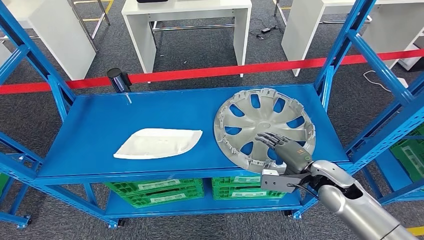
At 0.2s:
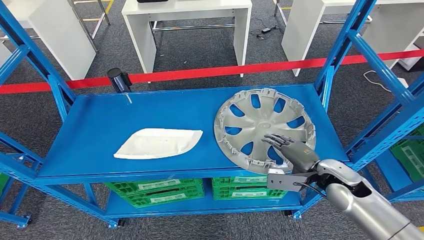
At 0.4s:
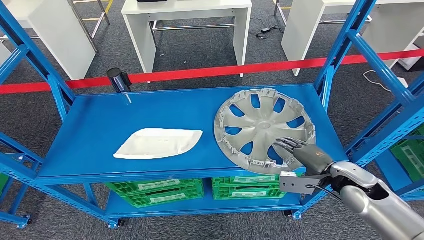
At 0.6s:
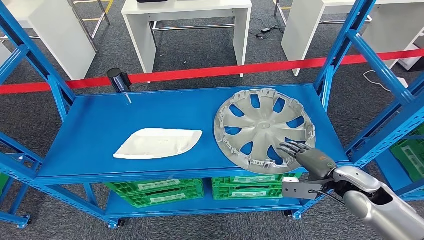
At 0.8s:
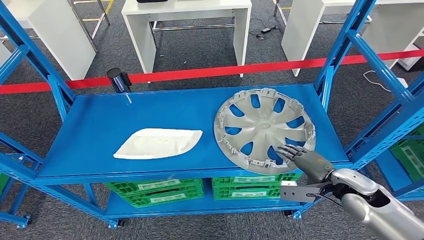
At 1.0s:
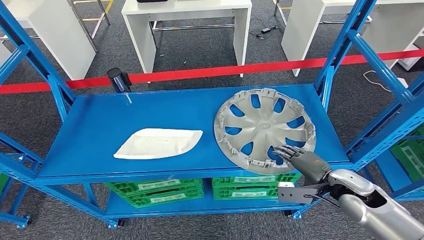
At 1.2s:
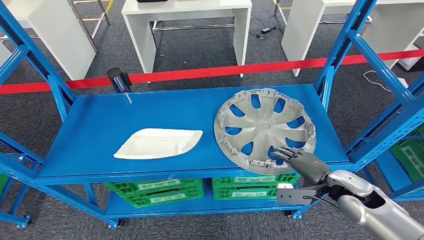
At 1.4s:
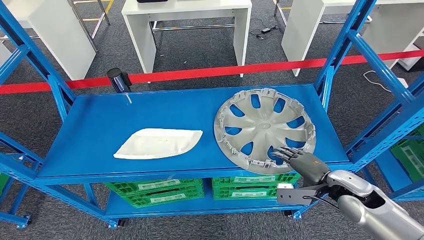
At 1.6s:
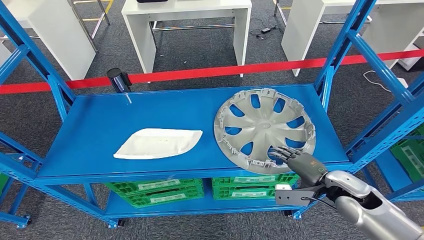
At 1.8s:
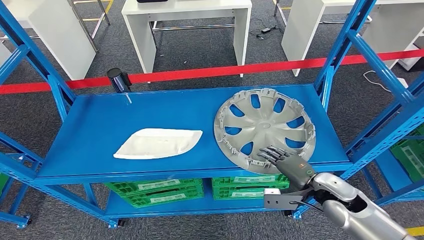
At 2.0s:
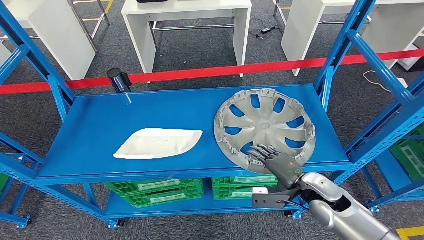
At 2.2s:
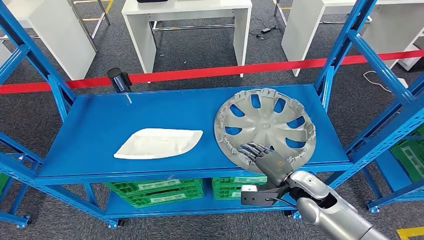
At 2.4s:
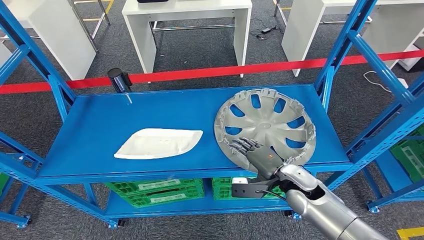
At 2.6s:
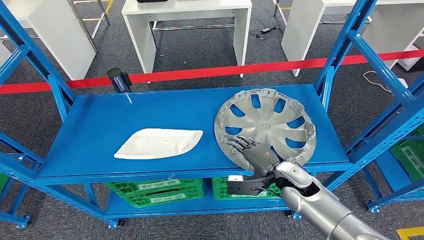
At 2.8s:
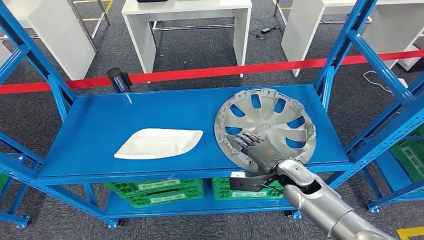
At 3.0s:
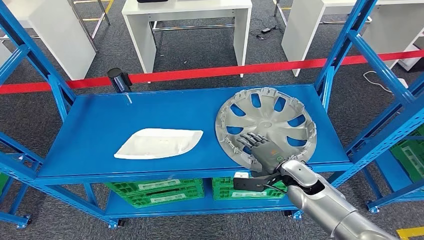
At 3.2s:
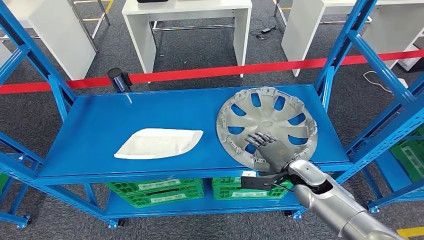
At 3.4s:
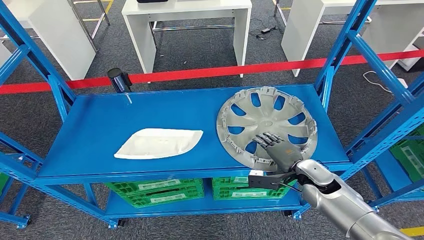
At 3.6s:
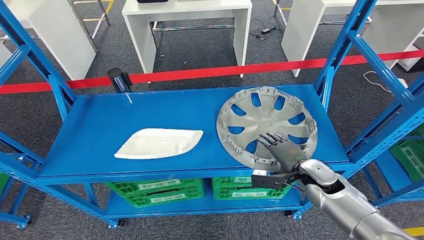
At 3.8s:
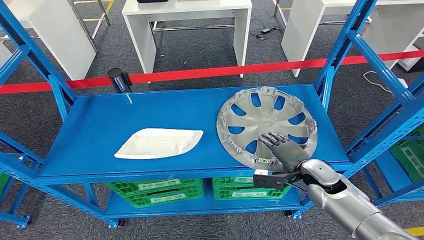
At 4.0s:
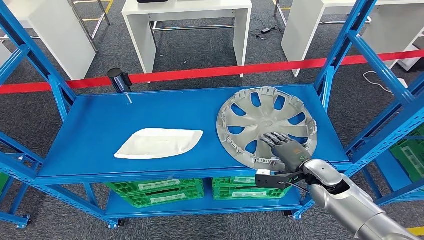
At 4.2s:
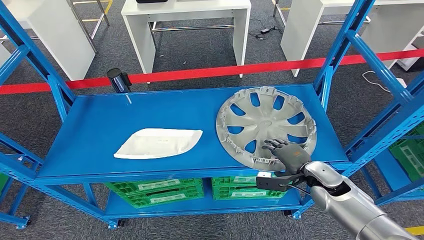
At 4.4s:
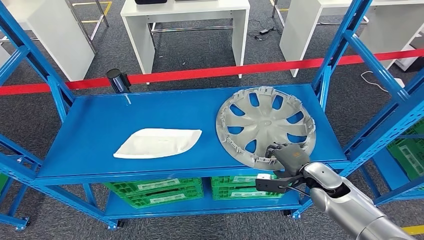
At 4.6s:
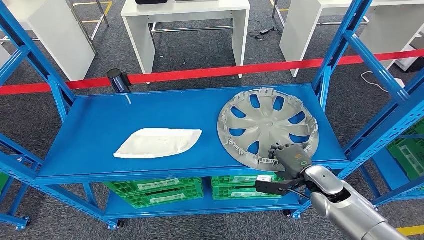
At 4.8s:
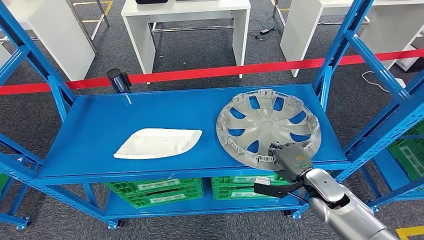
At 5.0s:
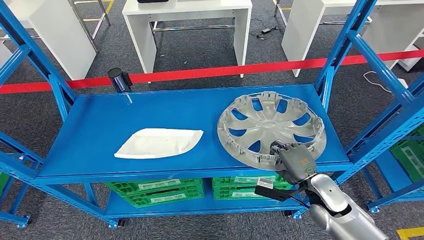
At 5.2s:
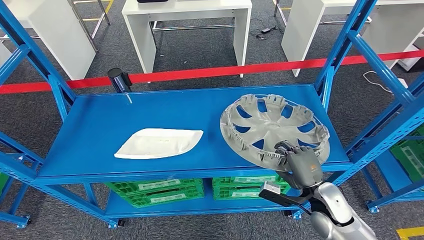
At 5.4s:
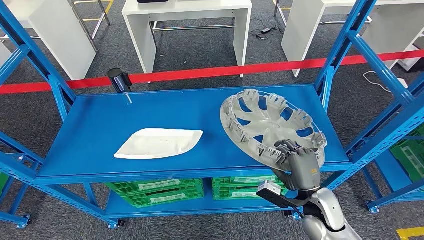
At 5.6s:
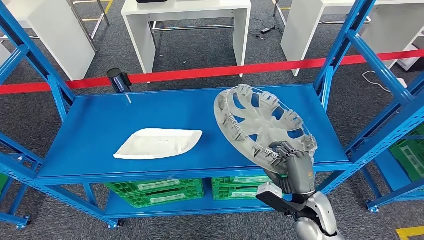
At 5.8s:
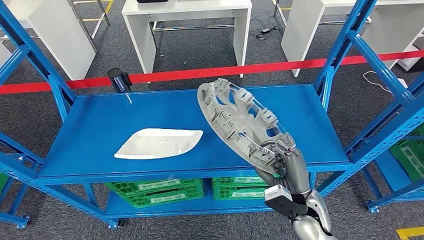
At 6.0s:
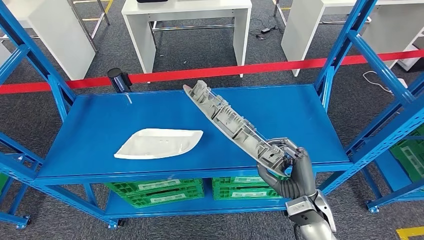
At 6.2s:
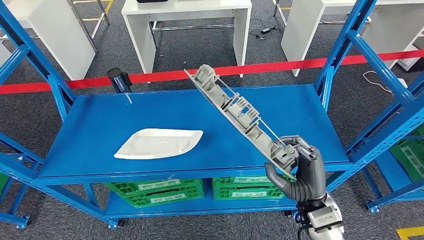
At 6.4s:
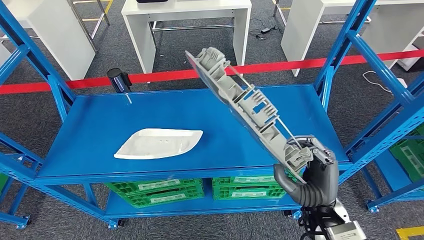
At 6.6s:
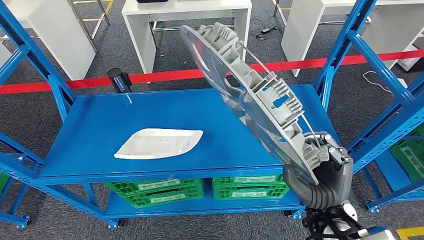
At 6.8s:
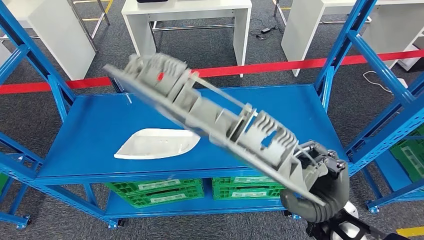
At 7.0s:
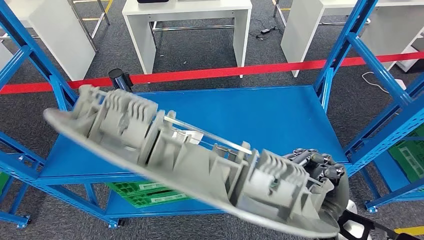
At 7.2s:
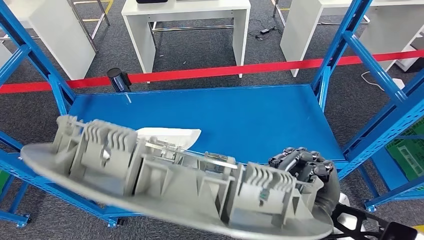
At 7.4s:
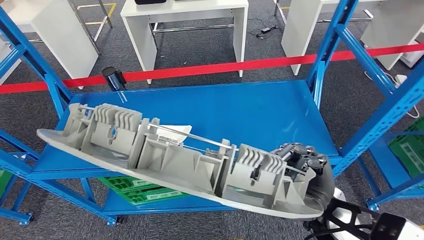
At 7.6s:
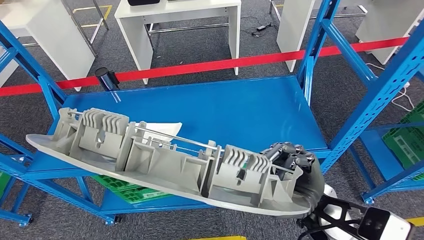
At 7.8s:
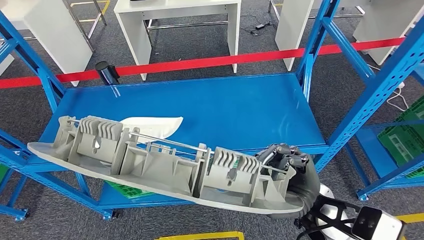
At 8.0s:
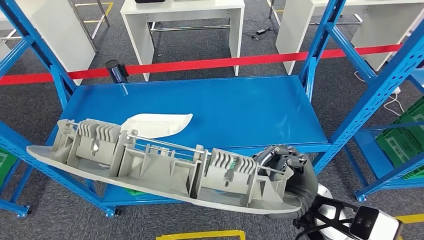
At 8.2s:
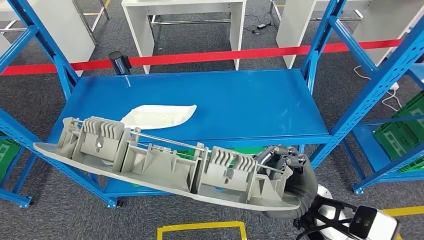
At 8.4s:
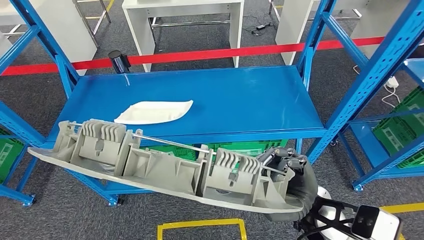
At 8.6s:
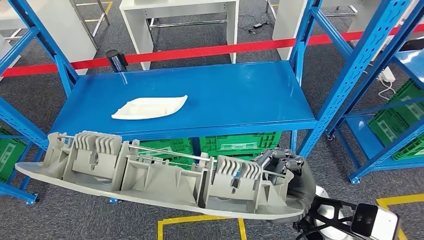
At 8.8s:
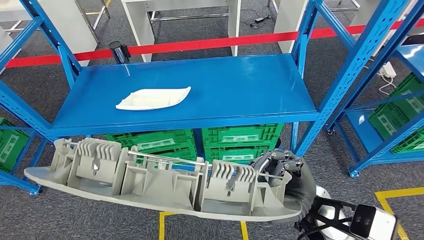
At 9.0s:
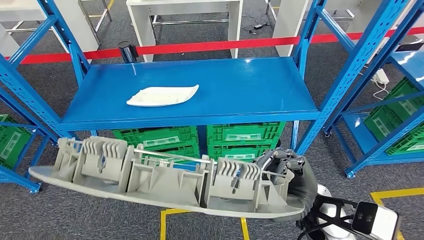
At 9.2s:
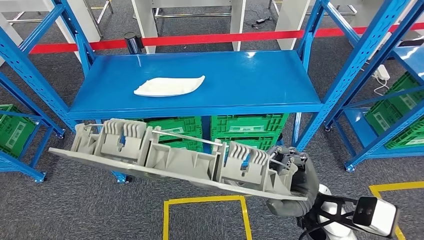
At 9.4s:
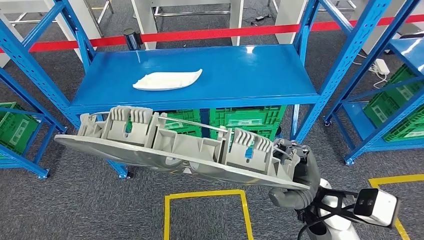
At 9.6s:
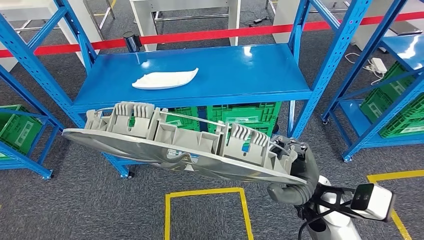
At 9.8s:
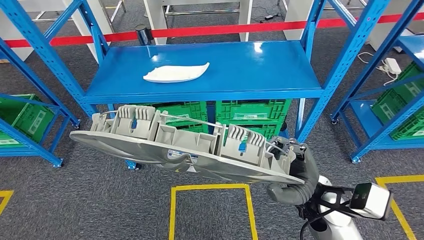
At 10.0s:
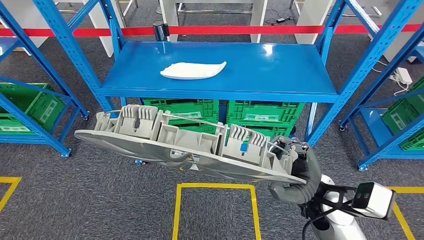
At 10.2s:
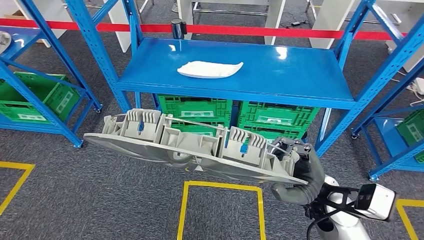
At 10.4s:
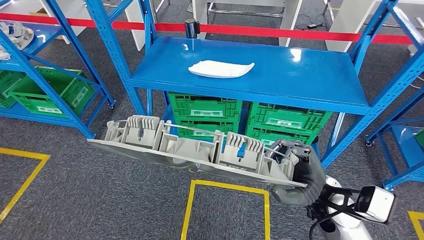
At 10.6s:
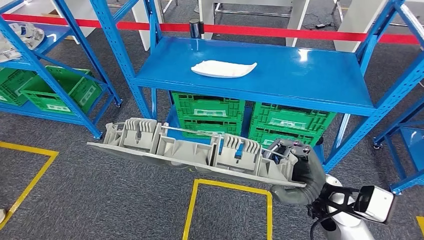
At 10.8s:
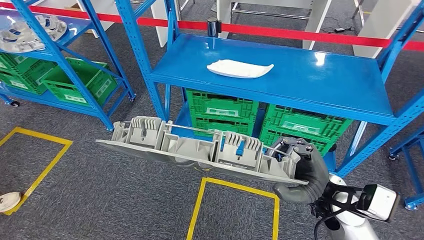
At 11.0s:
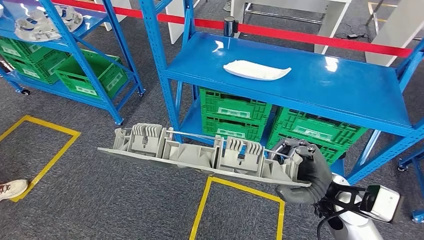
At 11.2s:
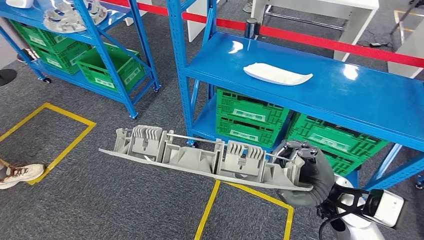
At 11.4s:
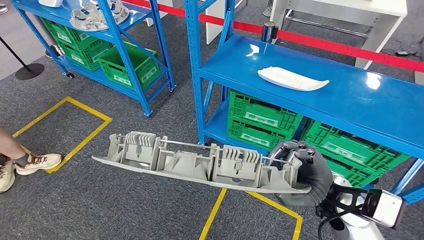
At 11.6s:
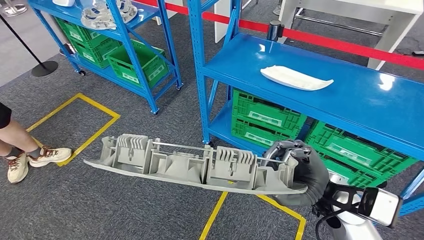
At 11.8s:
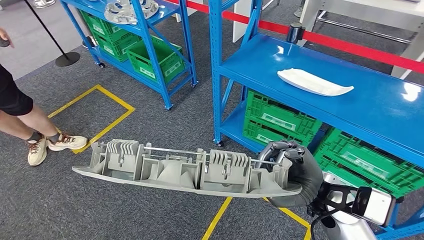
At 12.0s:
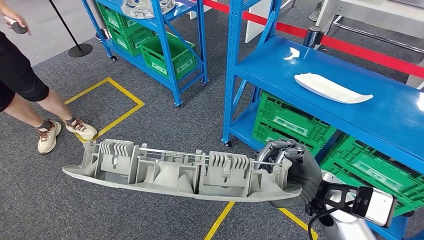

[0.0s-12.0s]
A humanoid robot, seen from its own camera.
Step, 0.0s to 7.0s: Take small components from the rack.
0.0s to 1.6s: The hands stay close to where they were, moving slightly.
1.6s to 3.0s: The right hand is displaced to the left by about 10 cm.
3.0s to 4.4s: The right hand goes about 5 cm to the right.

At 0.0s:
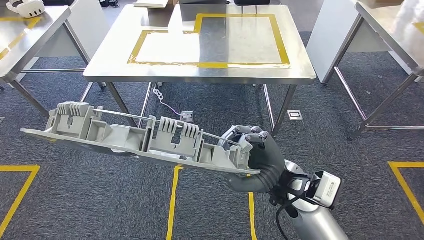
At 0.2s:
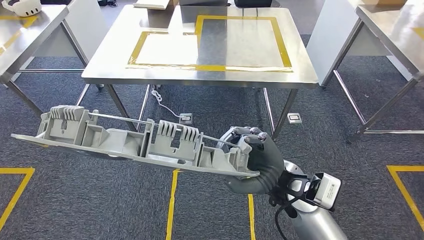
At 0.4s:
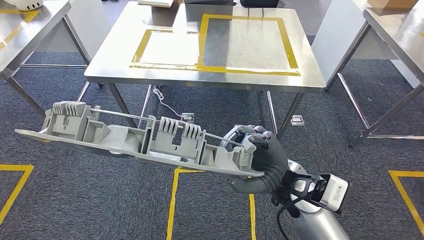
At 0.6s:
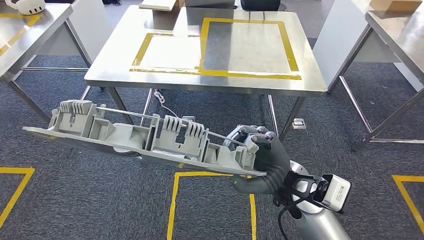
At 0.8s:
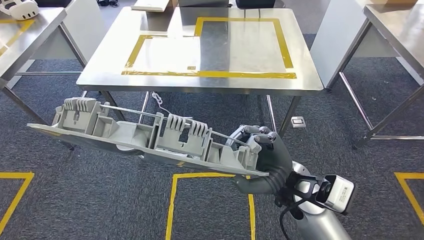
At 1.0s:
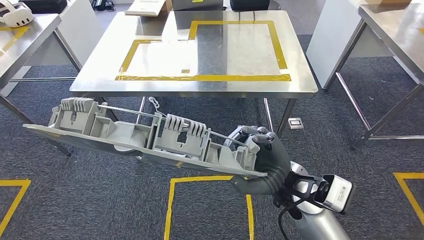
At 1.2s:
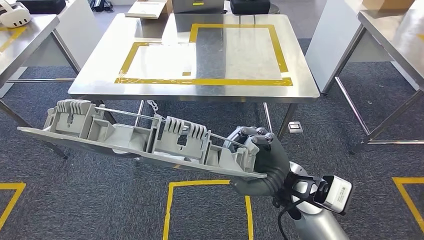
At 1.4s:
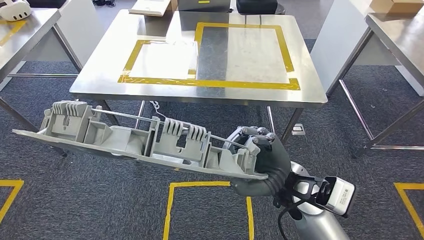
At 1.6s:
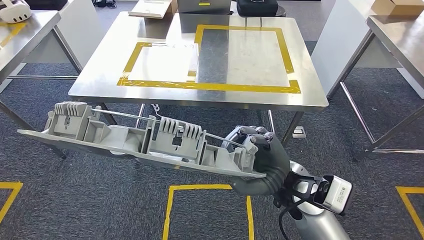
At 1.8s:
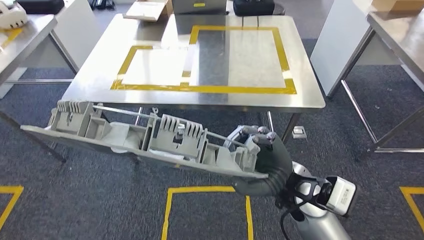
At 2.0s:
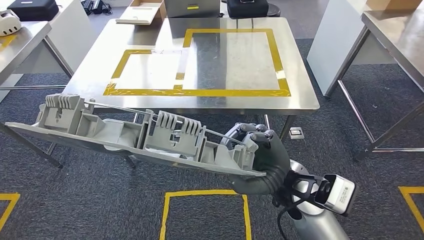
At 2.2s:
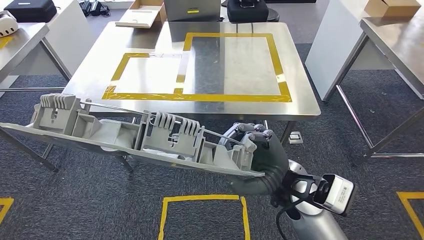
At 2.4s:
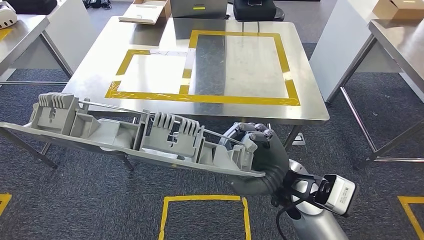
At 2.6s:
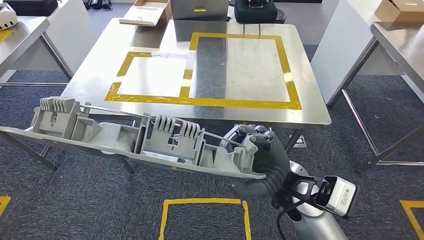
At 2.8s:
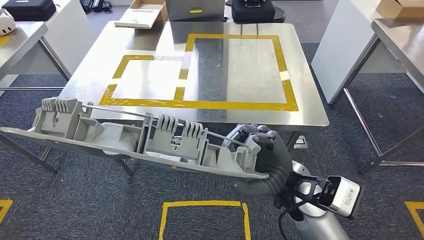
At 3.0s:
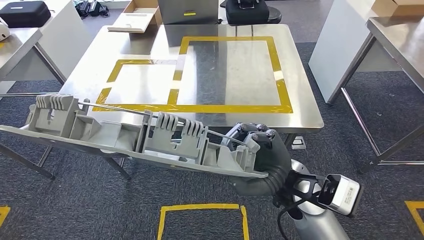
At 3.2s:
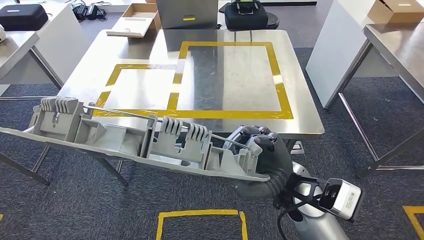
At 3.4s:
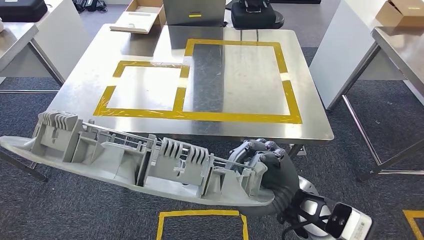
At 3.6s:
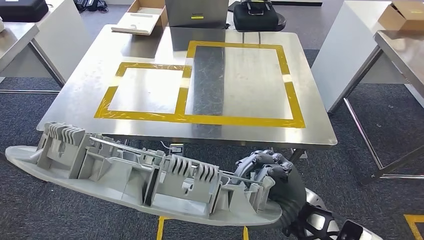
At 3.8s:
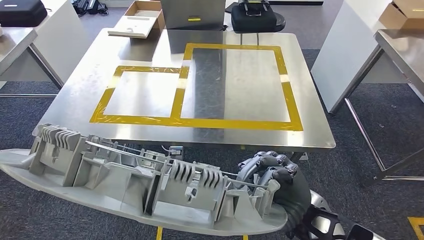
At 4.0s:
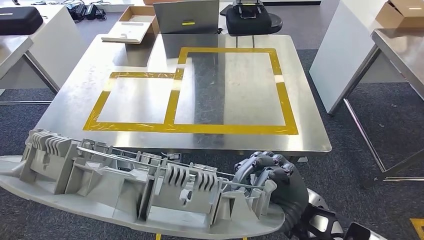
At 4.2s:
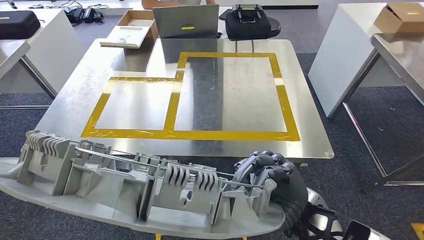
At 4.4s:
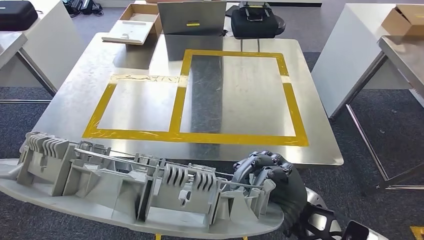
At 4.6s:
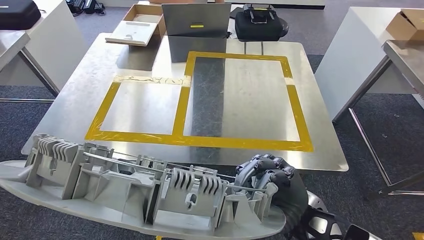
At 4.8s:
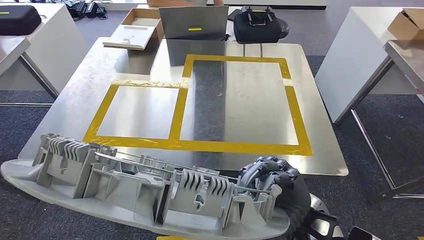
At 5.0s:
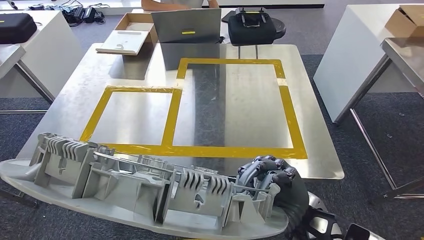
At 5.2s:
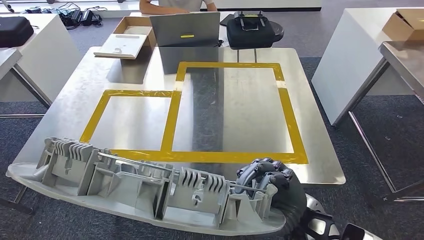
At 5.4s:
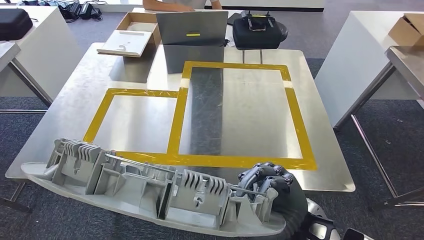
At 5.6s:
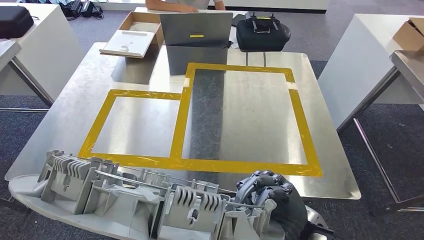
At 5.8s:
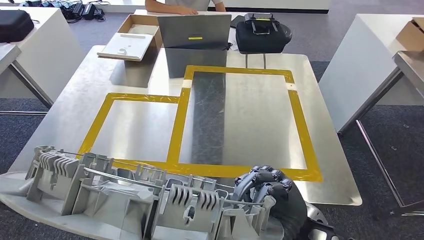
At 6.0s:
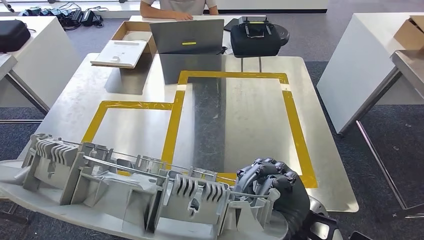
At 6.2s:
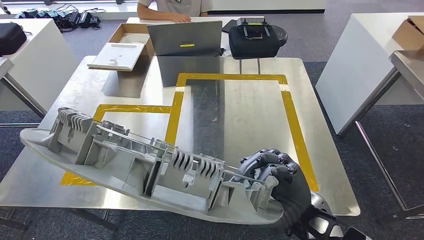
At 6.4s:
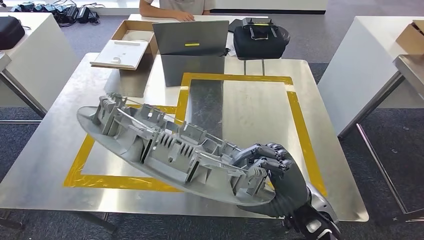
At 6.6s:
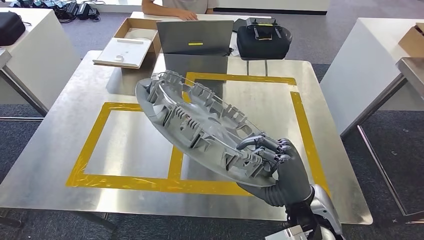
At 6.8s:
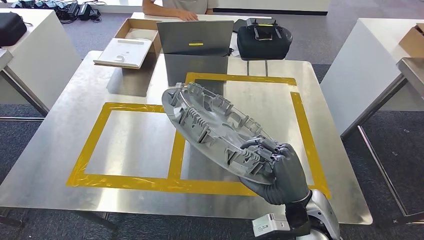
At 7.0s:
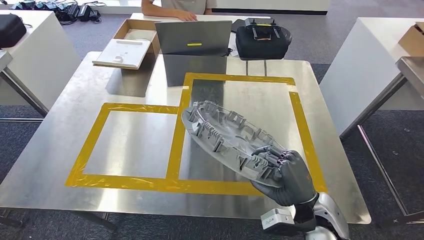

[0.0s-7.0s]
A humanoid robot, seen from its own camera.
Step, 0.0s to 6.0s: Move the small parts to the workbench.
